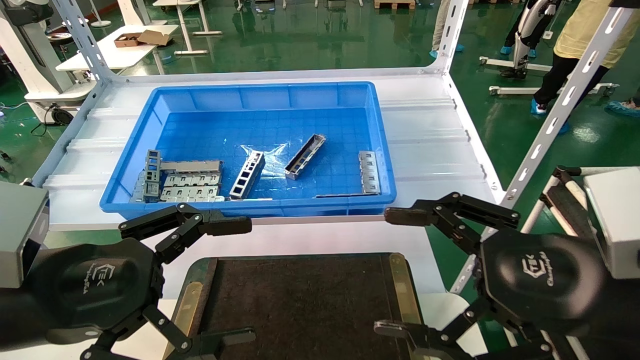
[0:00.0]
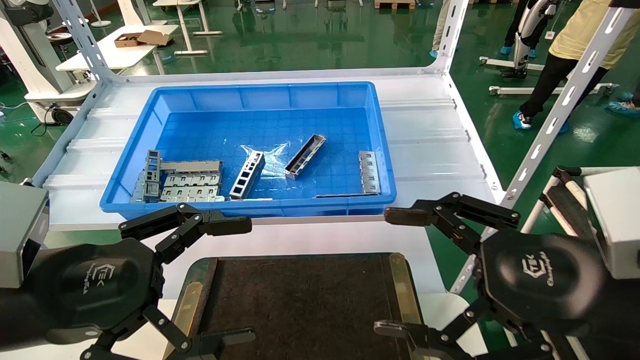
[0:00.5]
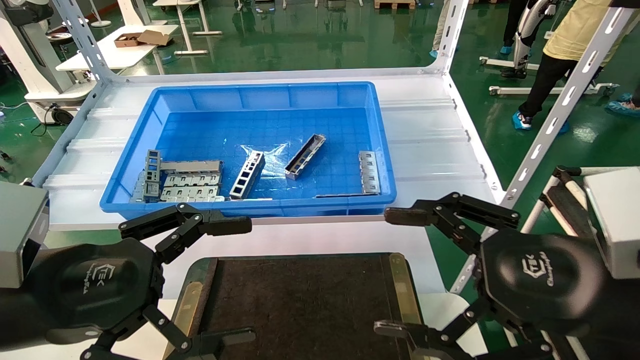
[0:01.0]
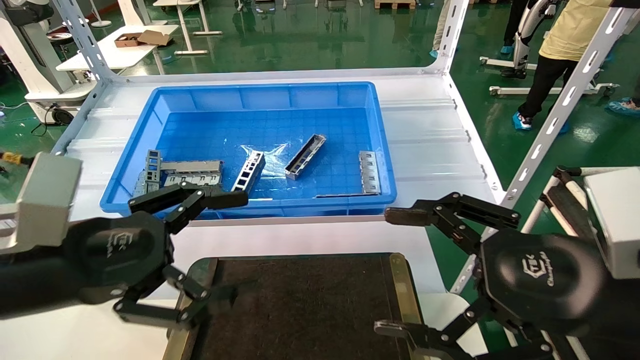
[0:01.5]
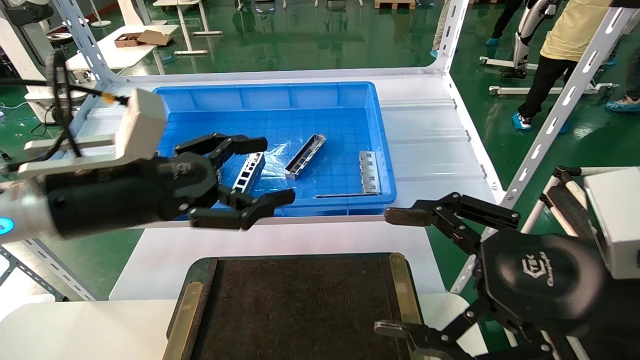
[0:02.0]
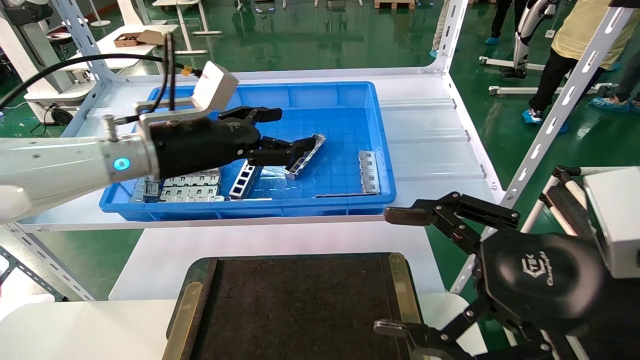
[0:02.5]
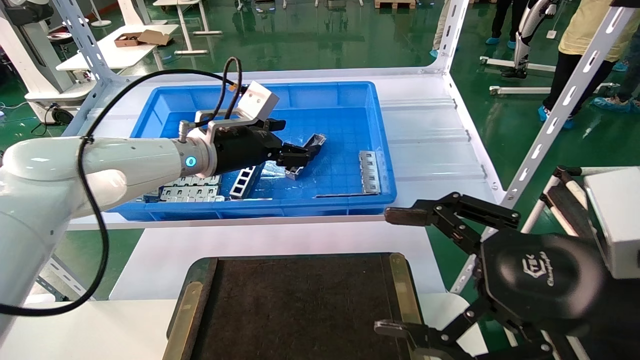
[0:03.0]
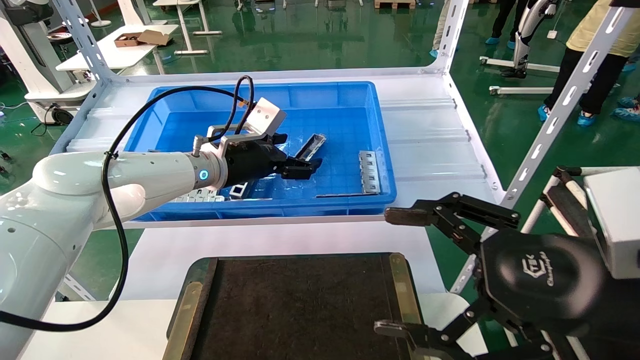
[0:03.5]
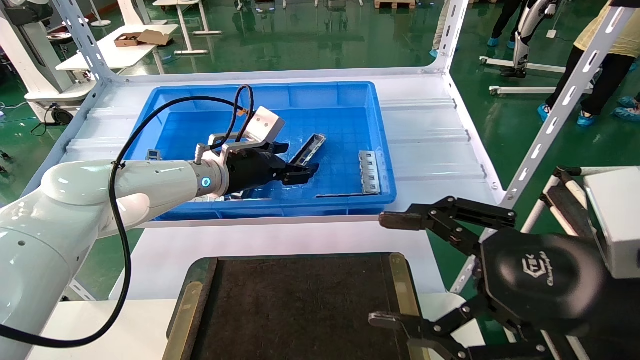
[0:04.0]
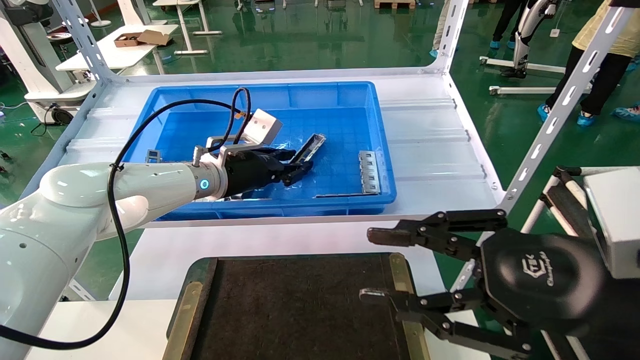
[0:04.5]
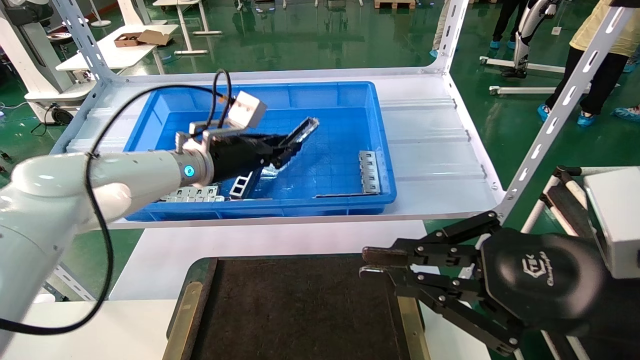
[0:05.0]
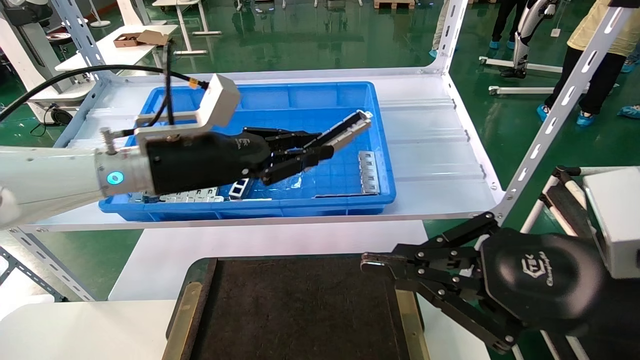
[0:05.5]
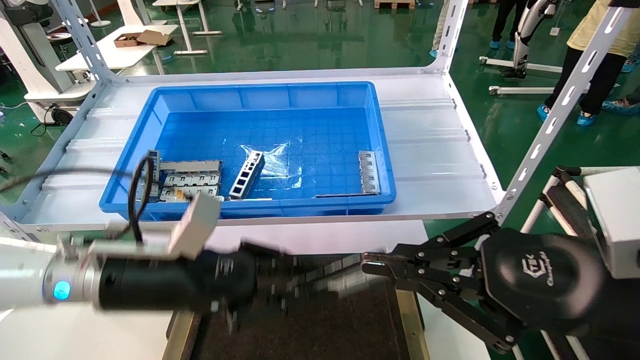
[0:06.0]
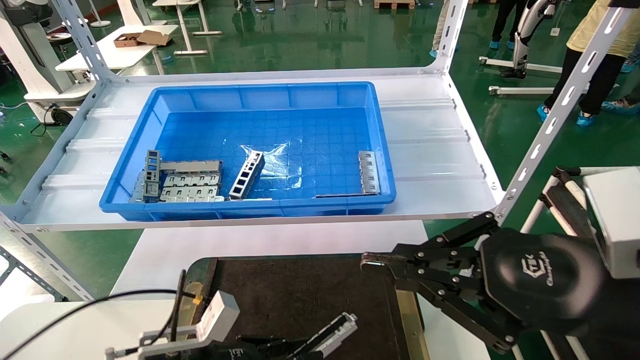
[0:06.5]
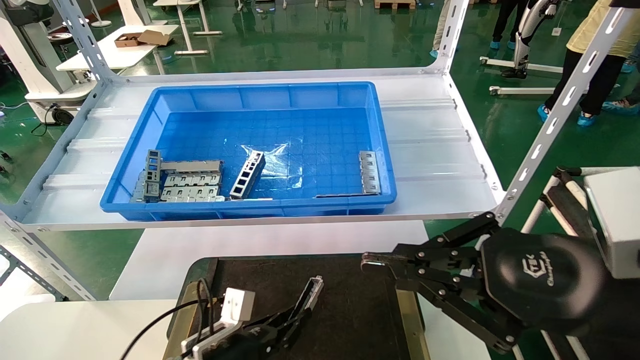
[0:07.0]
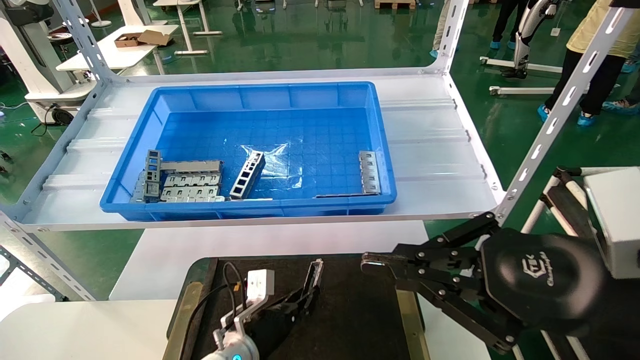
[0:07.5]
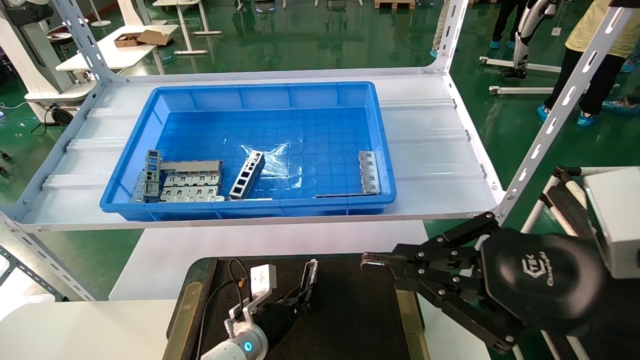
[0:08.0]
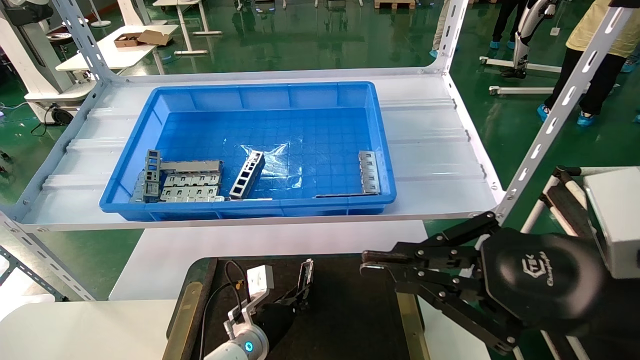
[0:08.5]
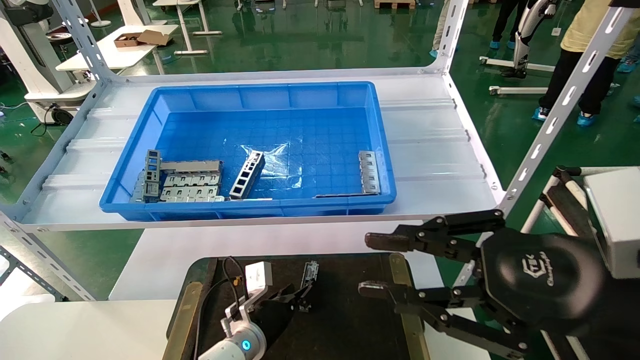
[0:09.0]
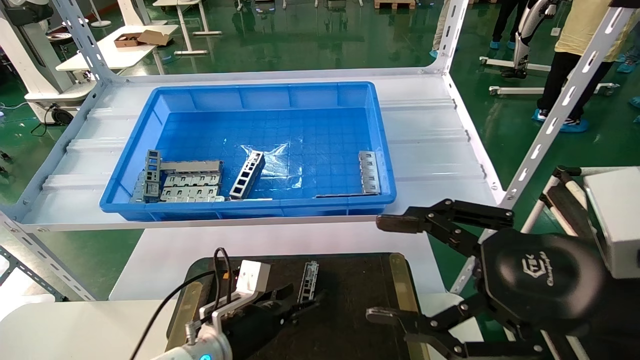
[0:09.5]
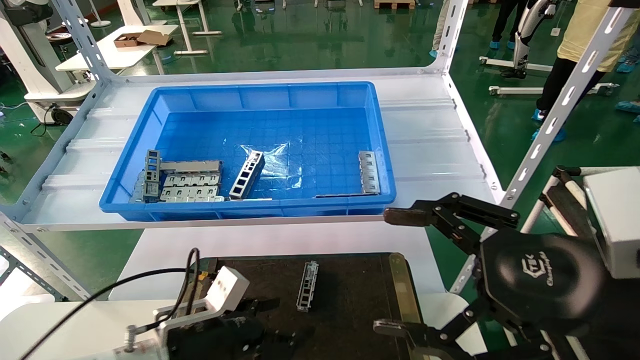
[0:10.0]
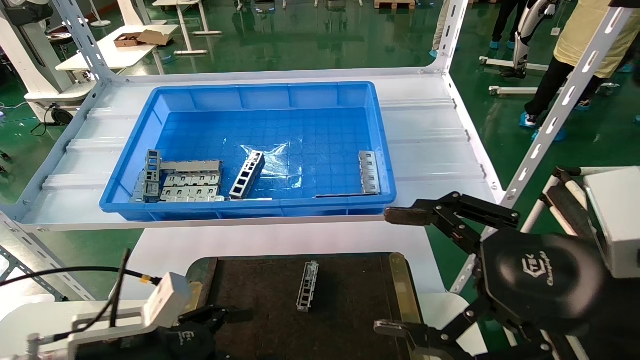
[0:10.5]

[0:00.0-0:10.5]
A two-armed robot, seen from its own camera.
Task of the whole recording: Grasp the part with one hand and place it on the black container.
Step, 0:02.0 to 0:05.0: Pick up the front USB bracket from the feeding area.
Step, 0:05.5 to 0:09.0: Place the front USB bracket into the box.
0:00.0 to 0:02.0: The left gripper goes approximately 10 cm forward.
0:02.0 to 0:04.0: The left gripper moves forward and to the right, some 20 cm.
0:04.0 to 0:06.5: The right gripper closes. The left gripper shifts some 30 cm downward and backward, and closes.
0:06.5 to 0:08.5: The left gripper is displaced forward, to the right and downward by roughly 20 cm.
0:08.5 to 0:10.5: The right gripper opens up. Meanwhile the left gripper moves backward, to the left and upward, approximately 25 cm, and opens its fingers.
